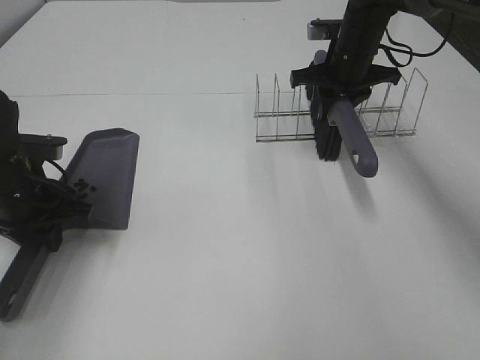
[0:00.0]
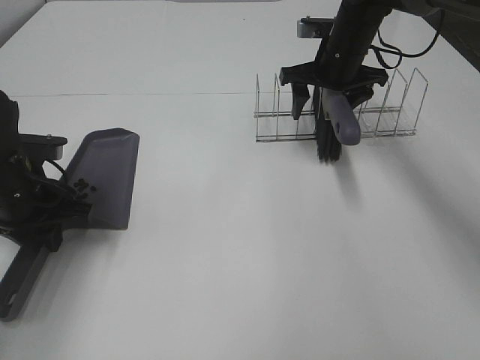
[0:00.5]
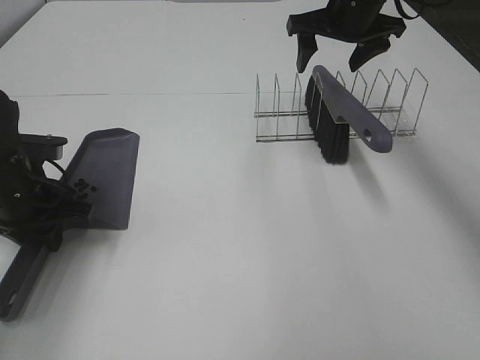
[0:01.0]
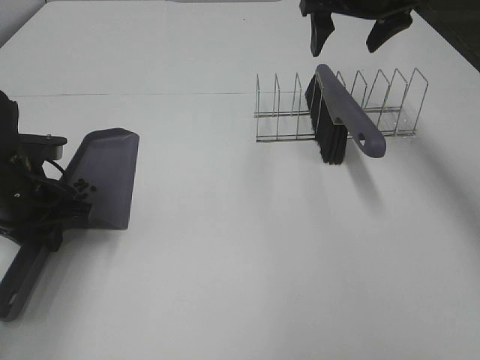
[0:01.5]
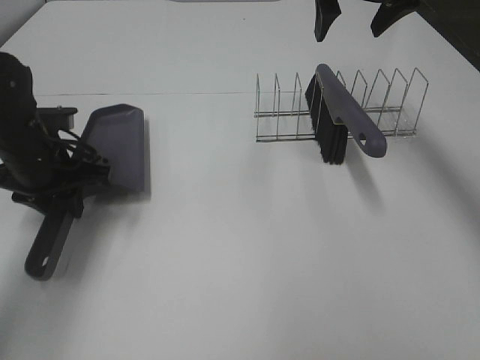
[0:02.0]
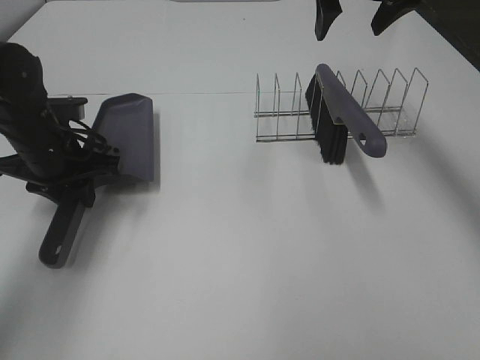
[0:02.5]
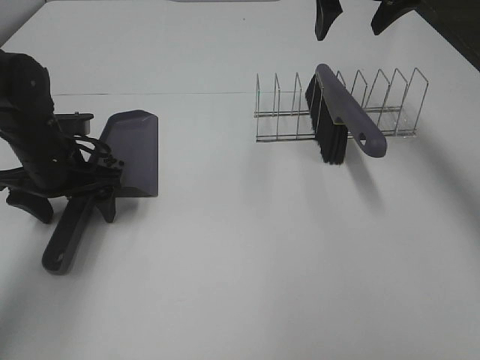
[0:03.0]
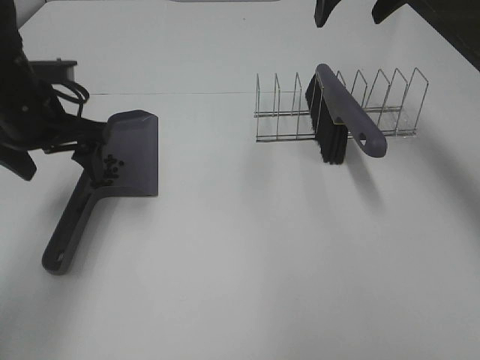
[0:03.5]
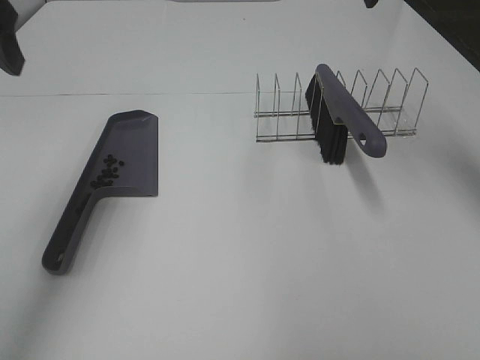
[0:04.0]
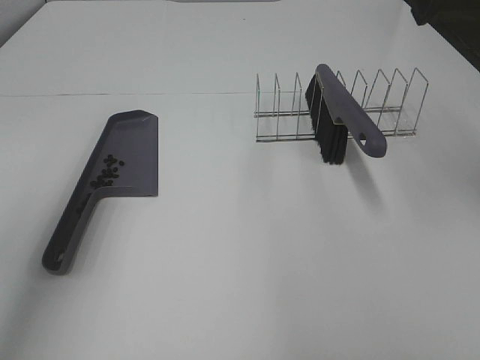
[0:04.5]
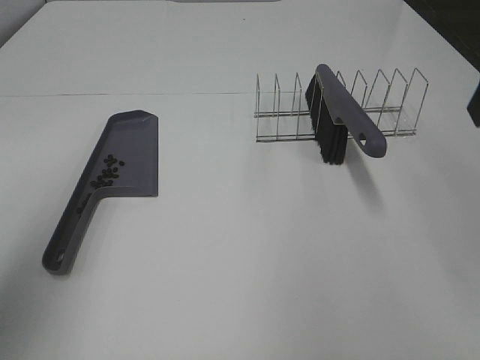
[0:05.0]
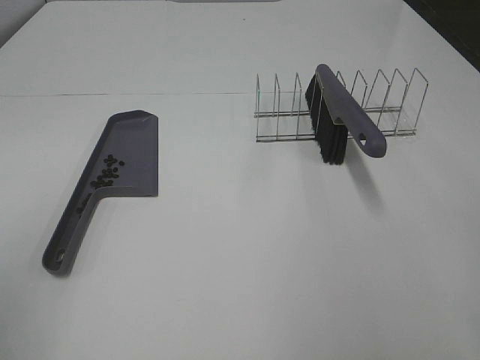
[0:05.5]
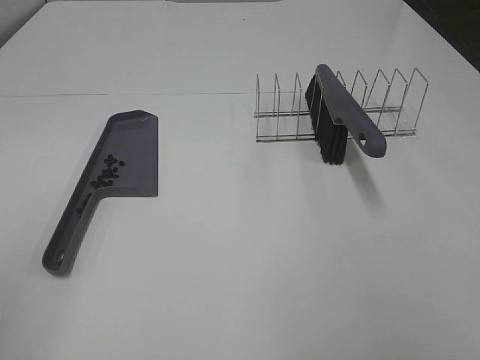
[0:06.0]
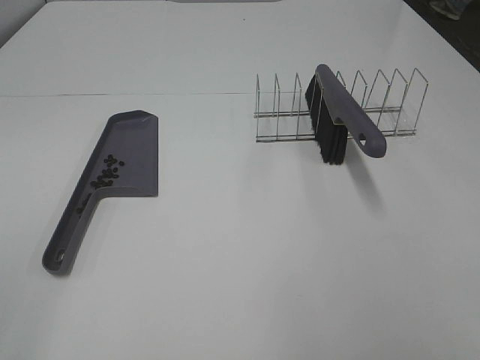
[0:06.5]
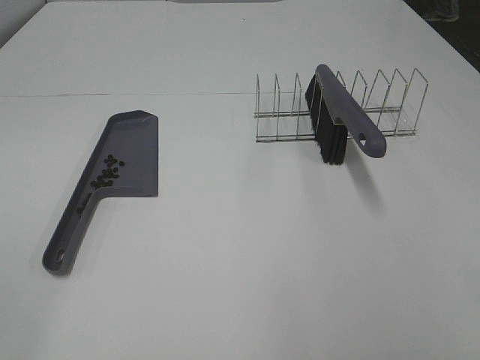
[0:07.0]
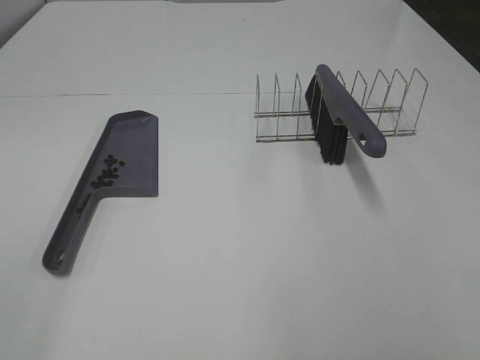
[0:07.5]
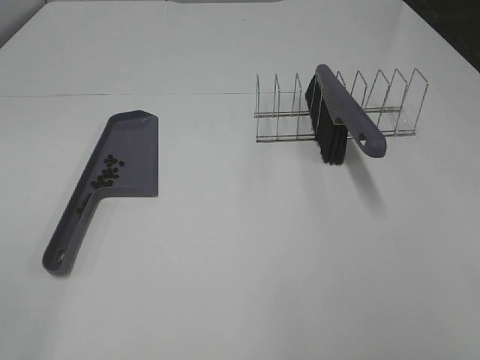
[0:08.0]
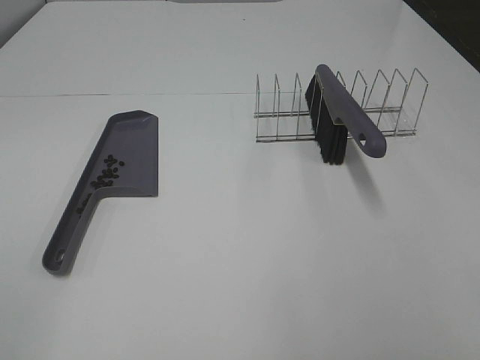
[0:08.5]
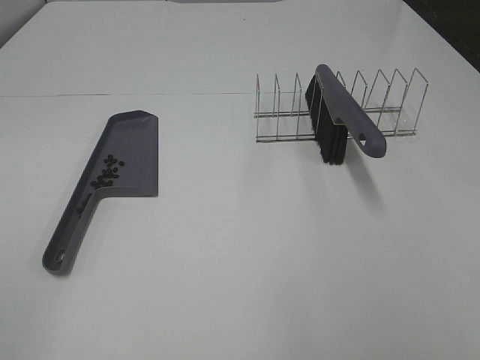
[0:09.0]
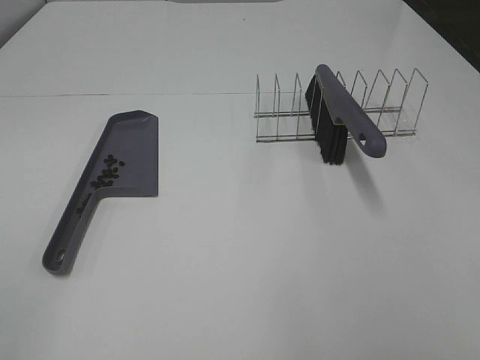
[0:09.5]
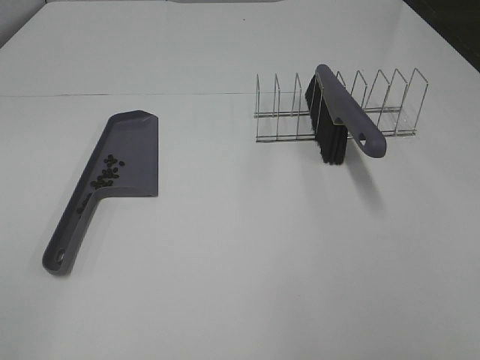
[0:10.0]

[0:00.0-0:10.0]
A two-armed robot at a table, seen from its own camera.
Task of the whole recording: Sweep Coffee Bean.
Step, 0:01.0 to 0:02.5: Left hand:place the dustpan on the table.
0:00.0 to 0:02.0: The right gripper travels upward by approximately 15 cm, and opens up.
0:02.0 to 0:04.0: The left gripper goes some 20 cm upward, and opens its fingers; the right gripper moves backward and upward, approximately 10 cm.
0:04.0 to 0:06.0: The two grippers go some 30 cm backward.
